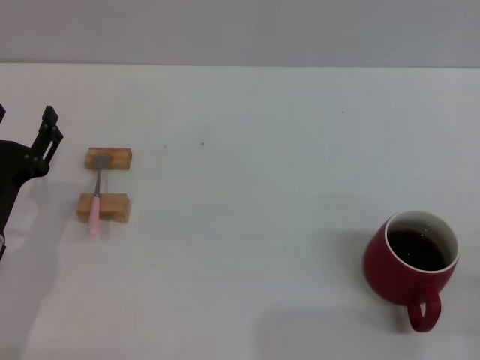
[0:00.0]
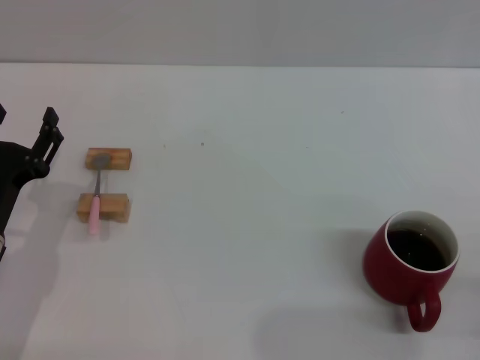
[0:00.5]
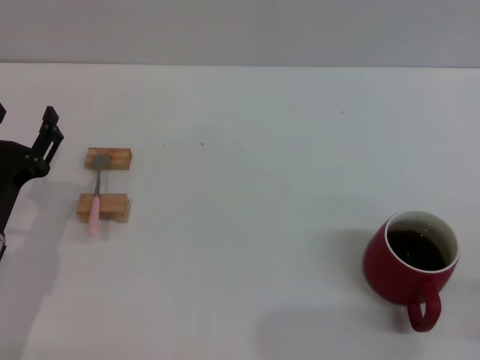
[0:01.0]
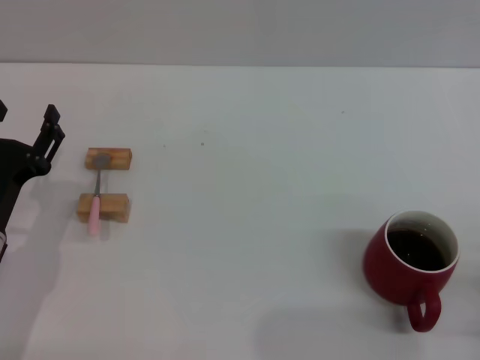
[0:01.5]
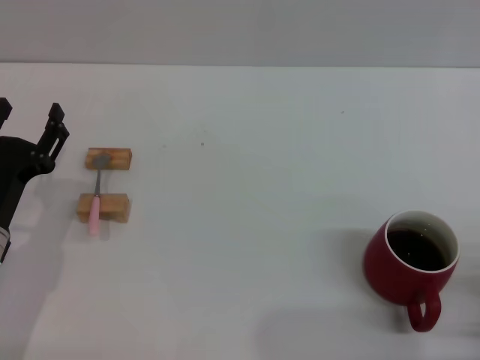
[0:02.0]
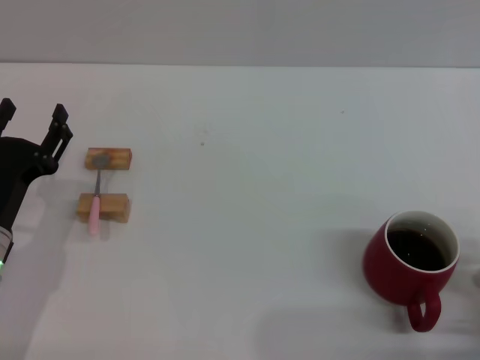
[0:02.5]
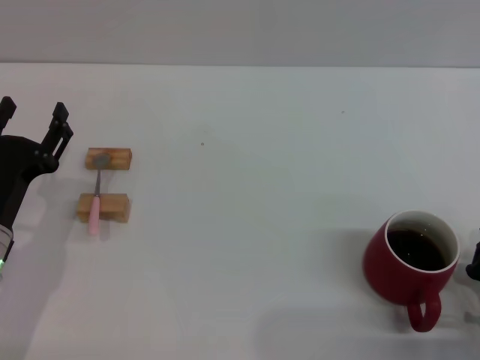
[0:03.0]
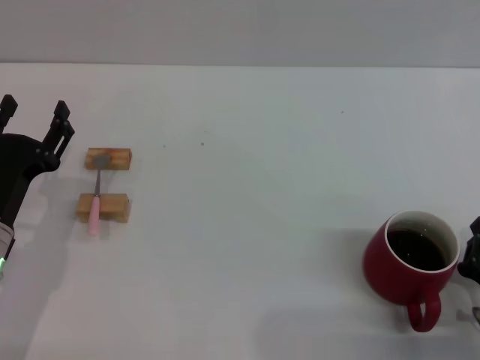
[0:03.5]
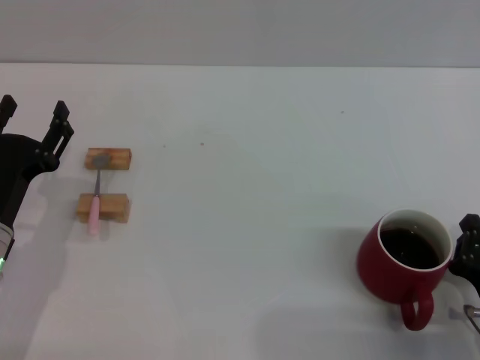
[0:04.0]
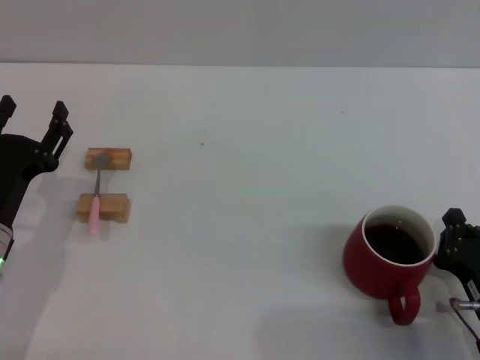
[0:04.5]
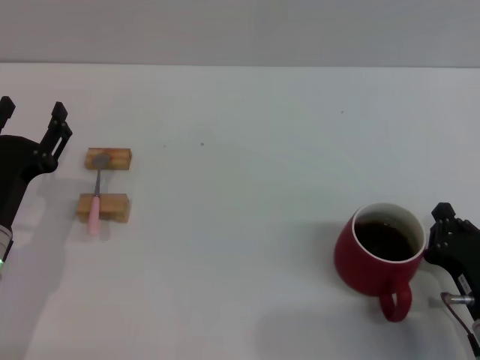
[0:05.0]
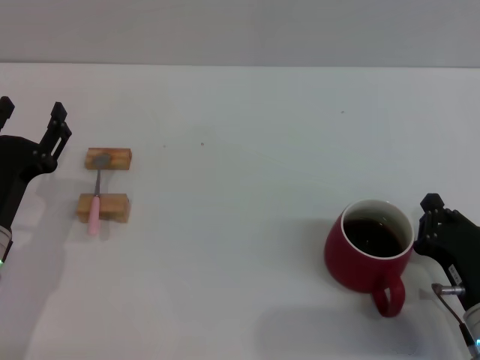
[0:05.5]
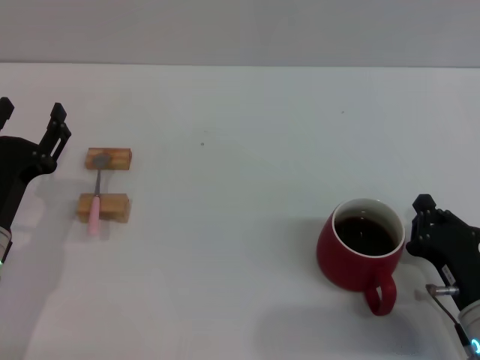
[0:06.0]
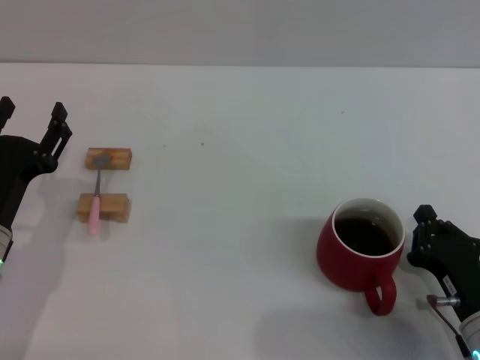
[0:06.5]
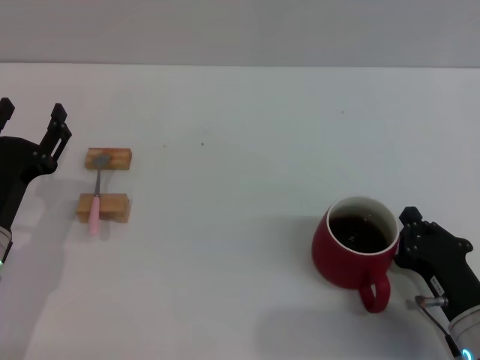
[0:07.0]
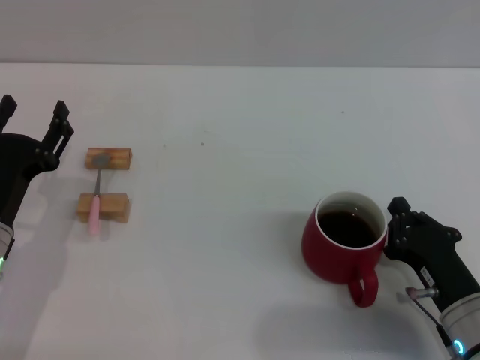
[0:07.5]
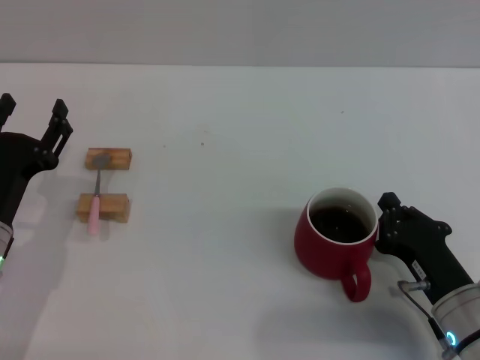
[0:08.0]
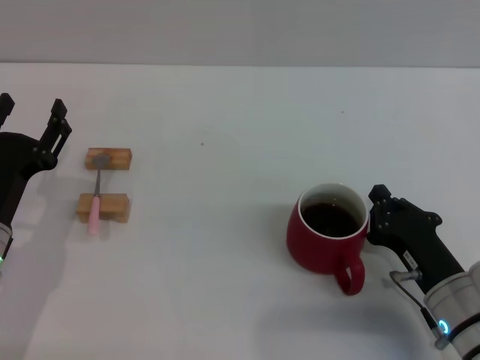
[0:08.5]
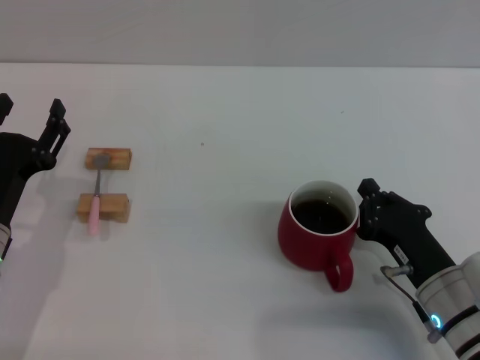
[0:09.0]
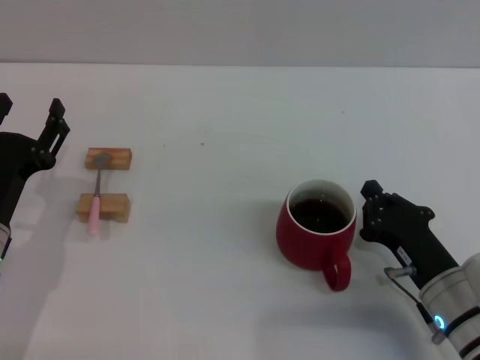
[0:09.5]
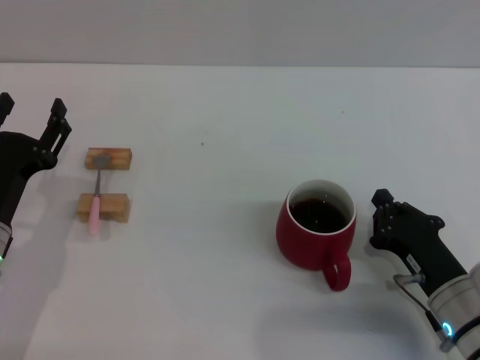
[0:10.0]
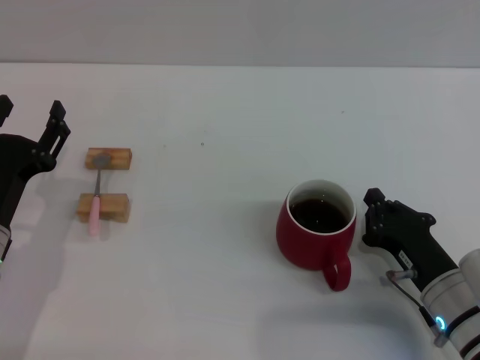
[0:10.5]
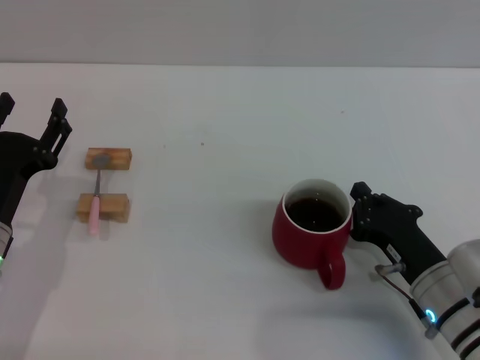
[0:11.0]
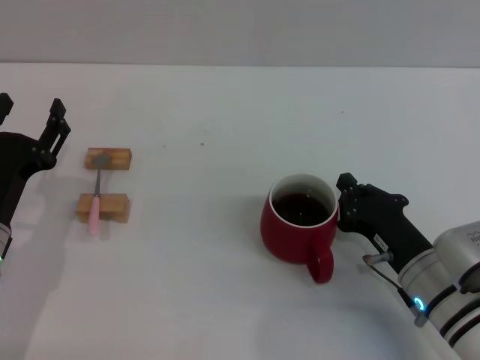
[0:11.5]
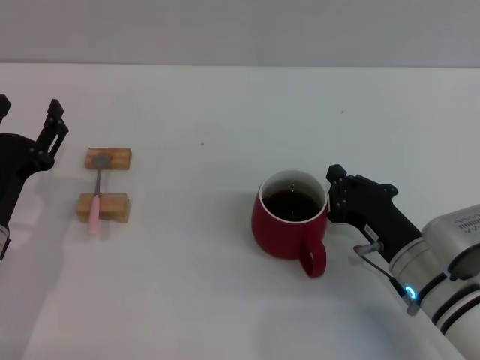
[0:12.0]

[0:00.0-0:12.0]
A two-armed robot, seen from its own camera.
Task of the whole recording: Move the red cup to the center, lift the pink spoon, stir it three times in the cup, and put the spoon into the cup.
0:02.0 to 0:04.0: The grippers move only a little.
0:04.0 to 0:08.0: The grippers move only a little.
0:08.0 to 0:10.0: The grippers move only a little.
0:10.0 to 0:12.0: The right gripper changes place by roughly 5 cm.

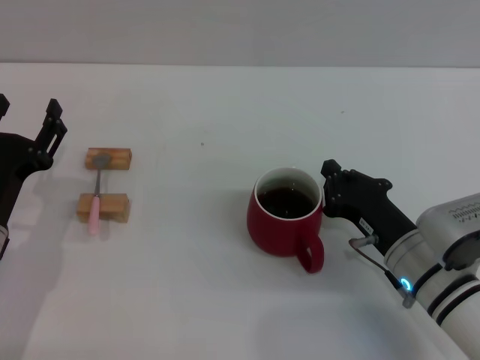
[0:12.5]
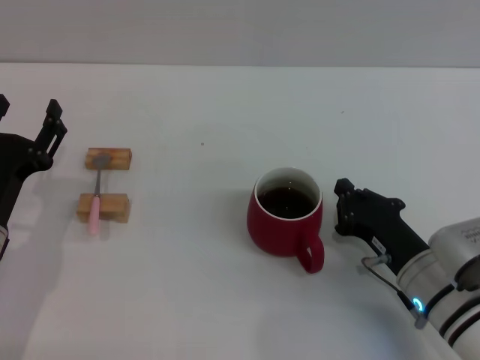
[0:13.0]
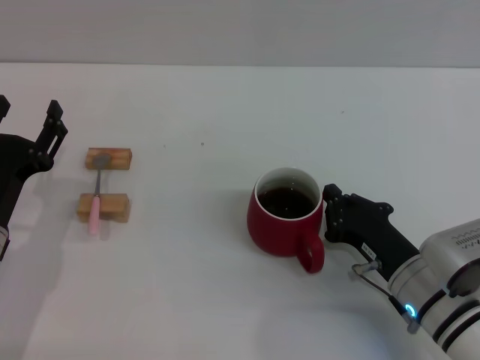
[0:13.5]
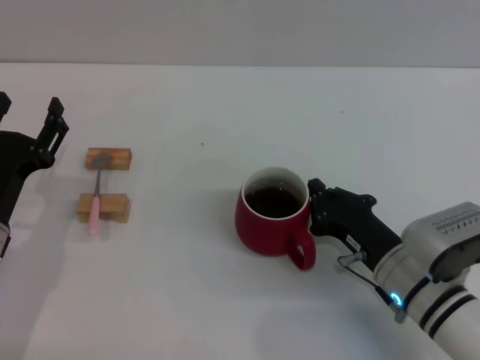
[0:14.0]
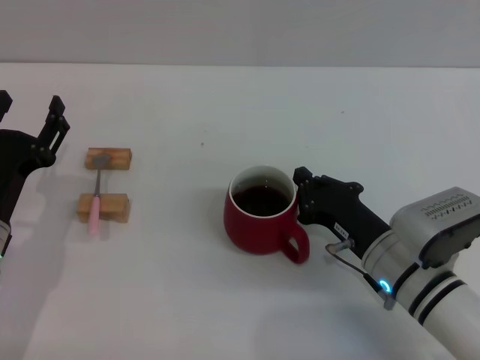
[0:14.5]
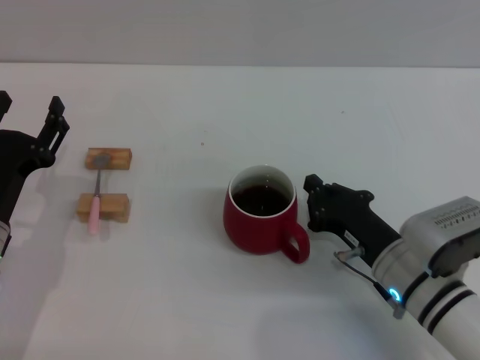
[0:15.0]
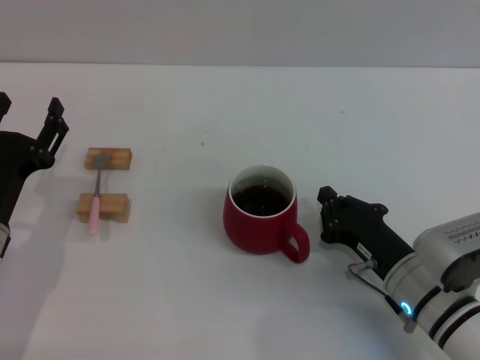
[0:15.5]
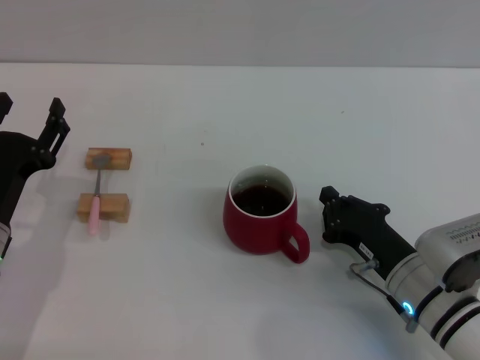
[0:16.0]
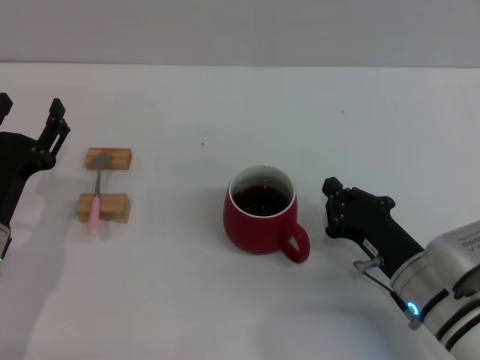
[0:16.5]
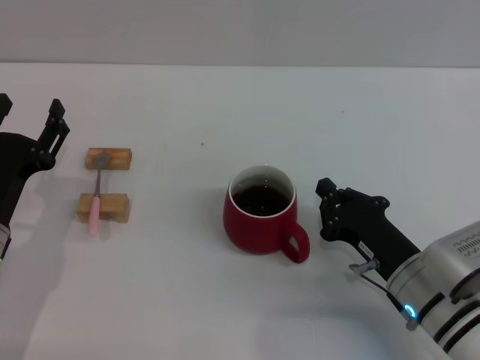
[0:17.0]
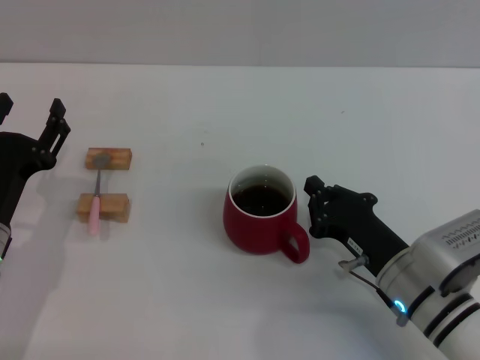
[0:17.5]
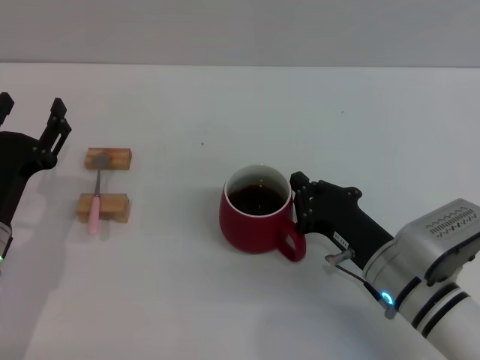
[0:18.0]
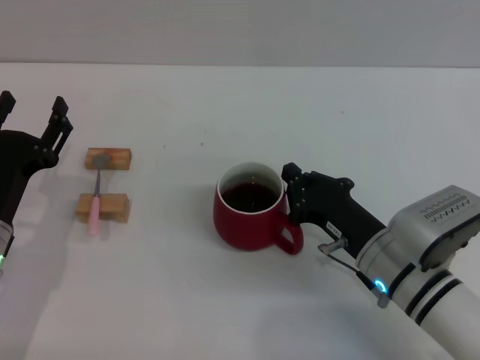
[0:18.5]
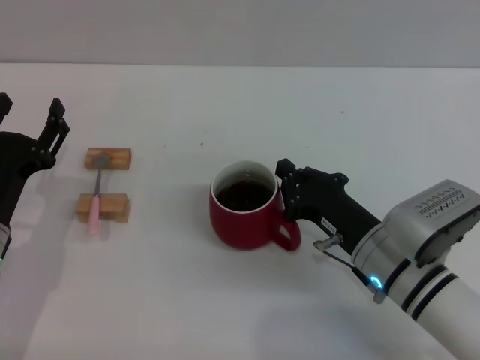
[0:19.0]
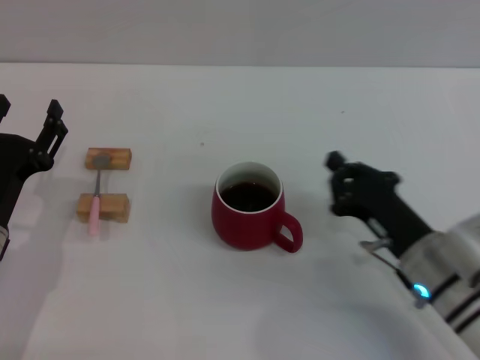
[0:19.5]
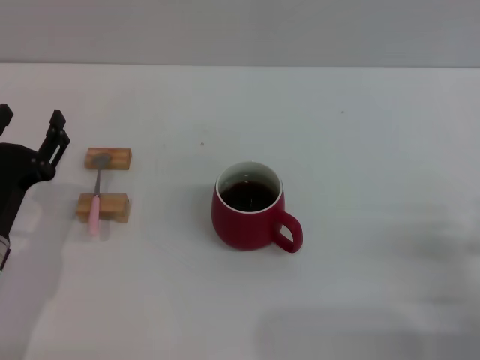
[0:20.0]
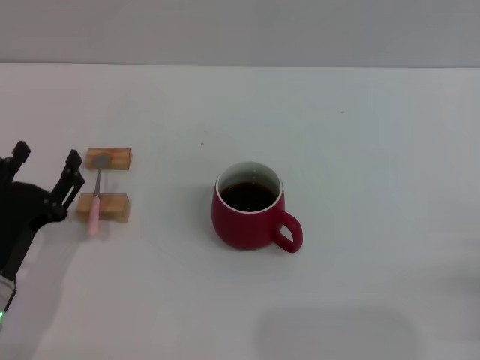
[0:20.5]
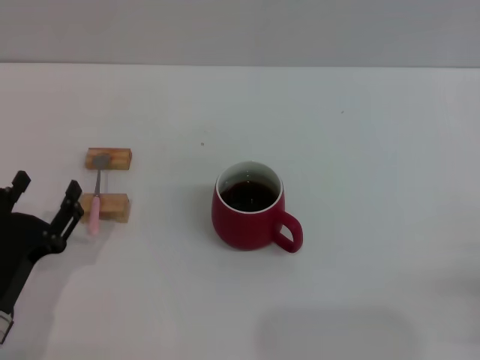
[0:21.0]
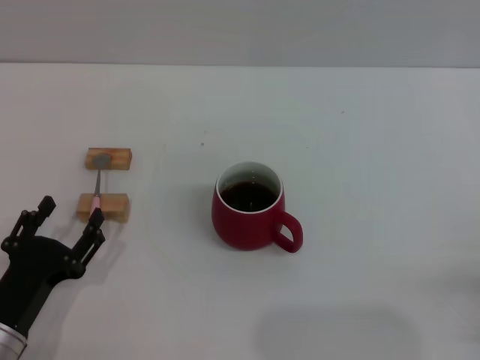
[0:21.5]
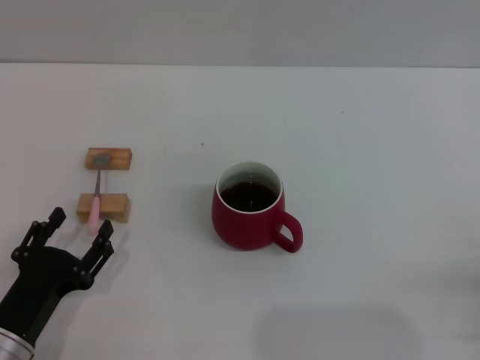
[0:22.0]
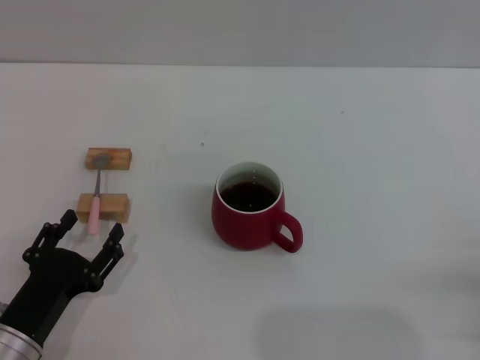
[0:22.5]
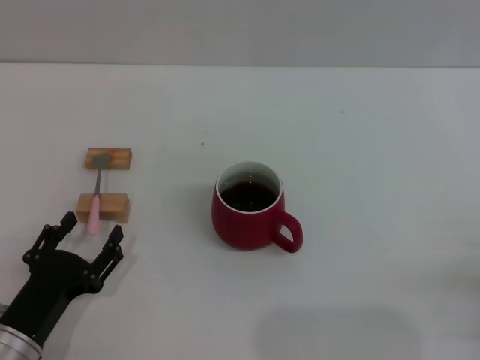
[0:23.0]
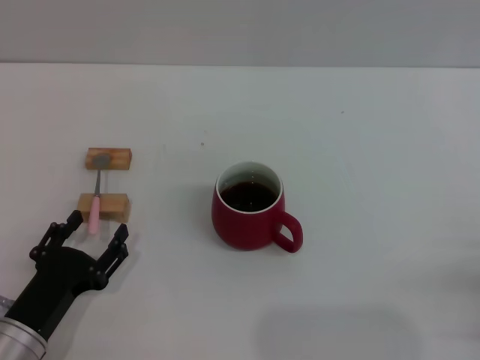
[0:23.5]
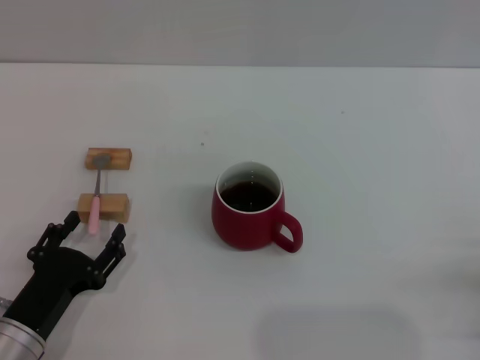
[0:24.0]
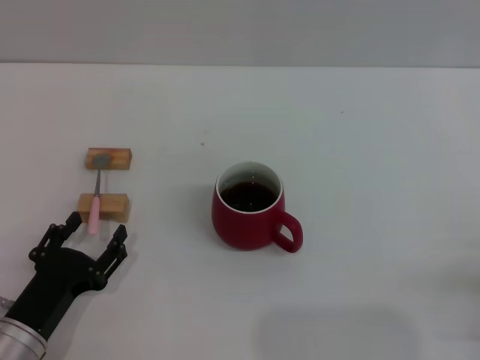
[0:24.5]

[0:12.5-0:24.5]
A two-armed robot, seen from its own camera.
Task of the whole recording: Move the red cup to the center, lift the pink spoon, stir it three times in the cup, and put the spoon into the cup.
Step, 0:12.5 to 0:19.0: Move the cup with coffee to the center of view with the right gripper.
0:12.5 to 0:18.5: There are only small adjustments of the grippers.
0:18.5 to 0:20.5: The right gripper is displaced to the right and backward by about 20 cm.
0:20.5 to 0:22.5: The left gripper ends up about 5 cm from where it was.
0:22.5 to 0:24.5: Both grippers stay about where they are.

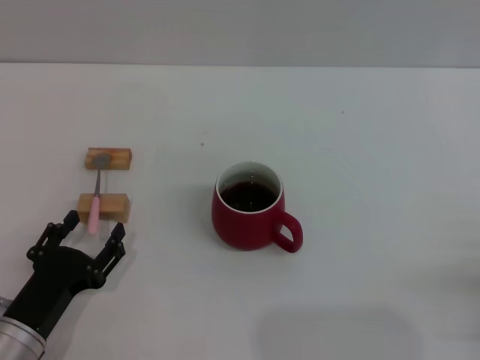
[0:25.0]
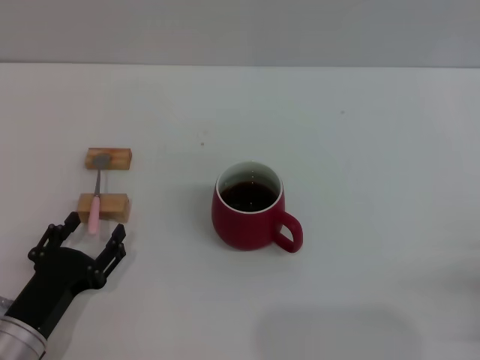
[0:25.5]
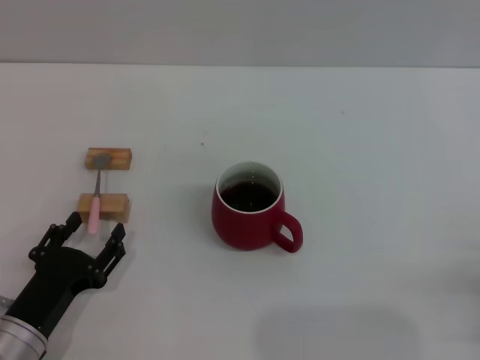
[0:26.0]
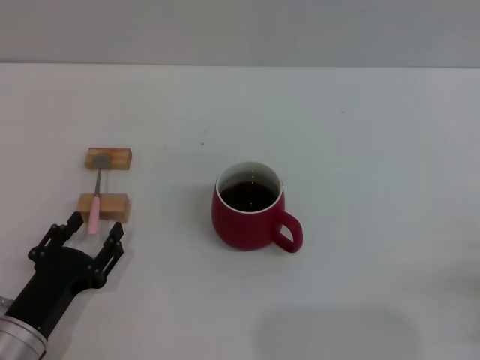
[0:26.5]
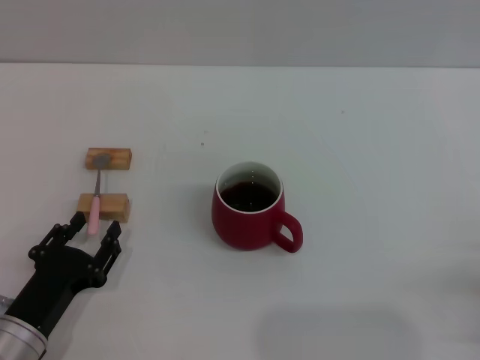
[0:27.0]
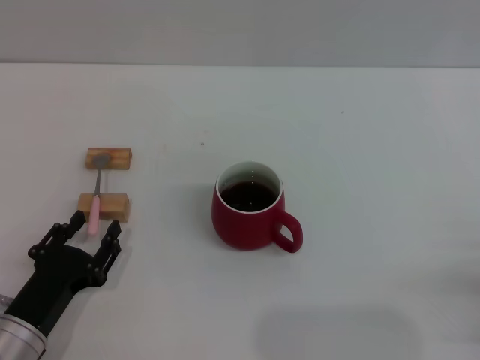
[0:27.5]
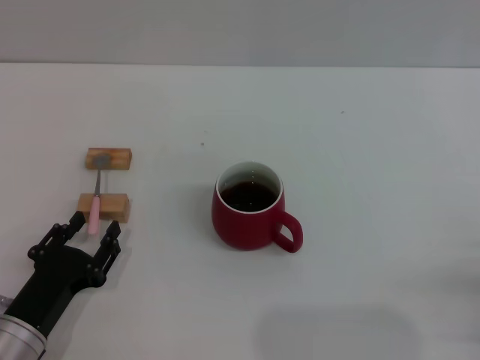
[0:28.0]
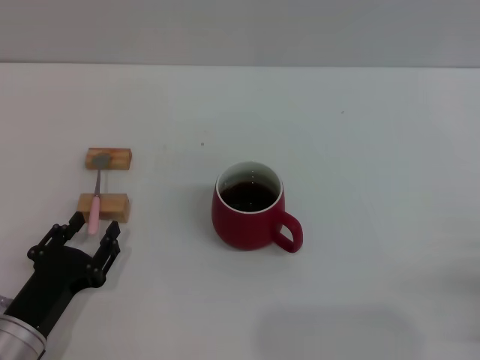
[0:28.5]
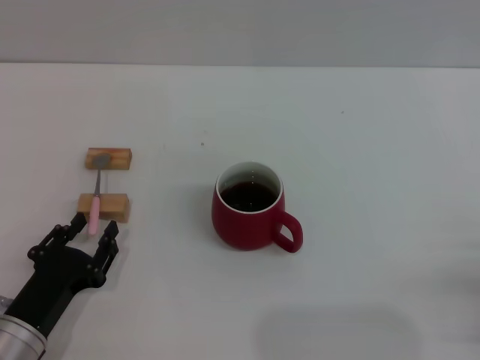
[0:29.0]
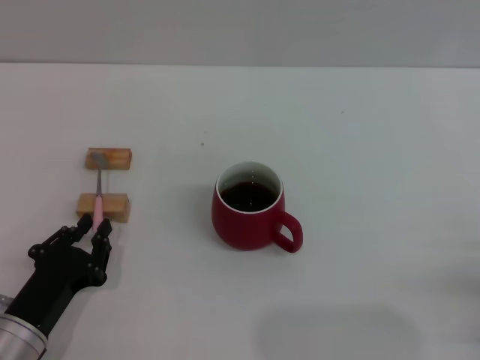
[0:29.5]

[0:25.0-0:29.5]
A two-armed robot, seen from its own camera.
Task of the whole recording: Move the red cup to the center, lift the pink spoon, stir it three times in the cup, and put the spoon into the cup.
0:25.0 to 0:29.5: Neither gripper changes place.
